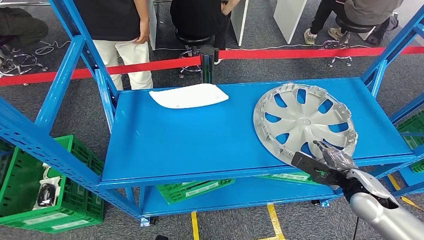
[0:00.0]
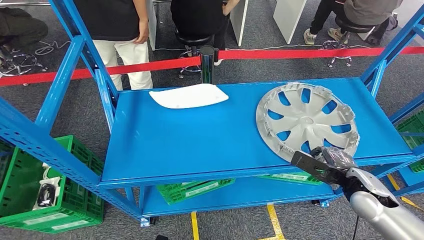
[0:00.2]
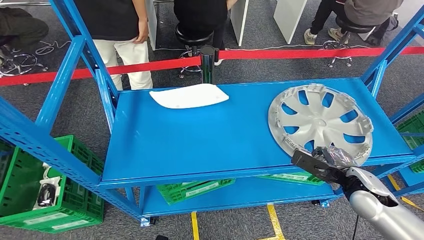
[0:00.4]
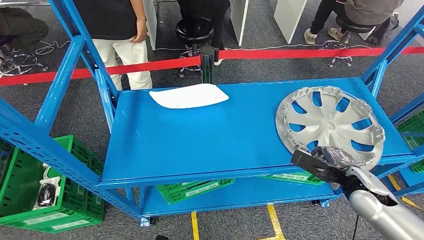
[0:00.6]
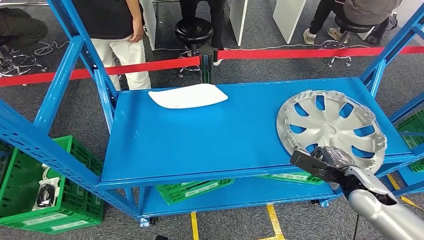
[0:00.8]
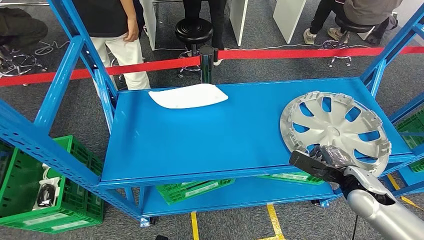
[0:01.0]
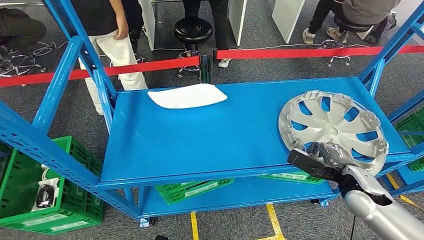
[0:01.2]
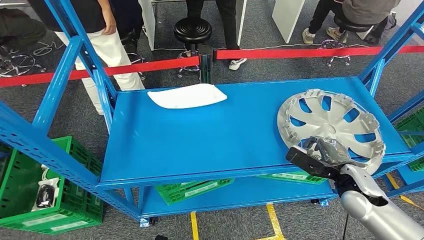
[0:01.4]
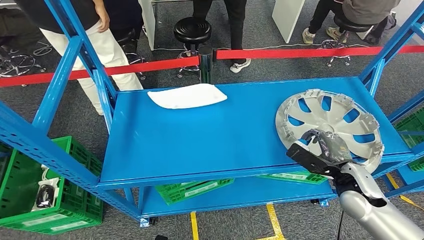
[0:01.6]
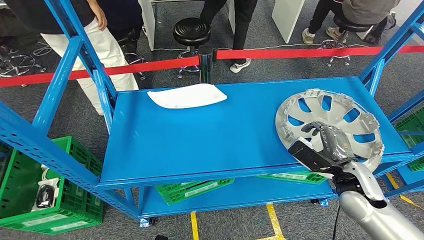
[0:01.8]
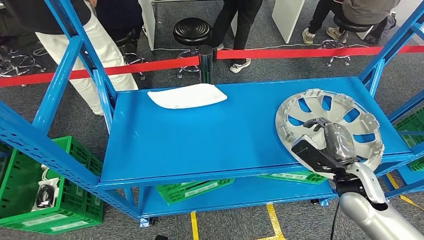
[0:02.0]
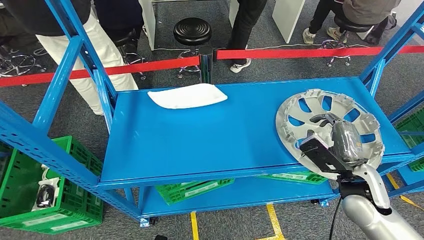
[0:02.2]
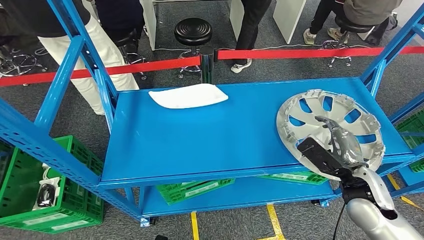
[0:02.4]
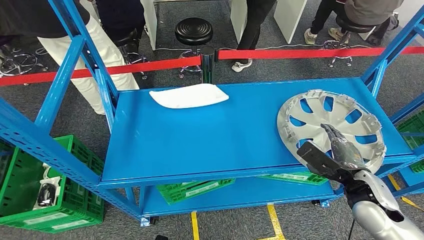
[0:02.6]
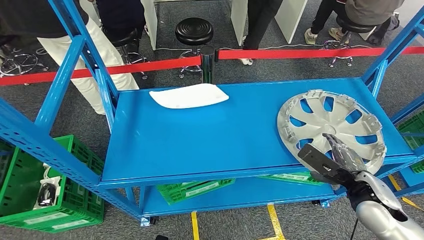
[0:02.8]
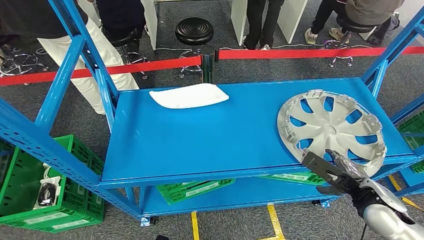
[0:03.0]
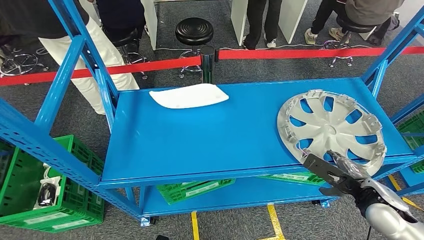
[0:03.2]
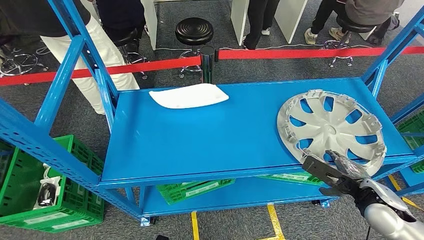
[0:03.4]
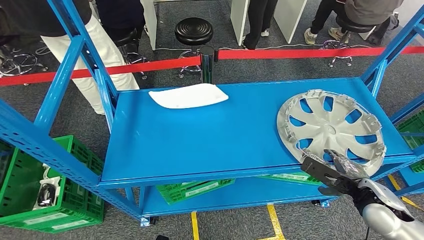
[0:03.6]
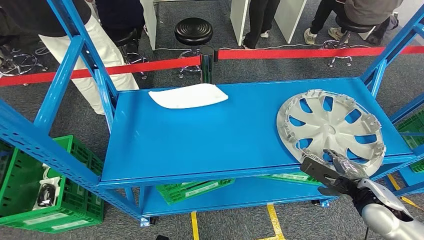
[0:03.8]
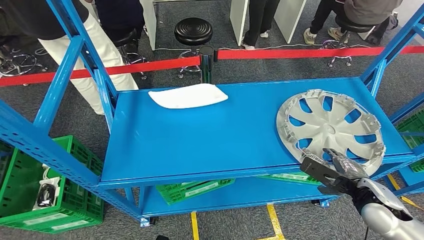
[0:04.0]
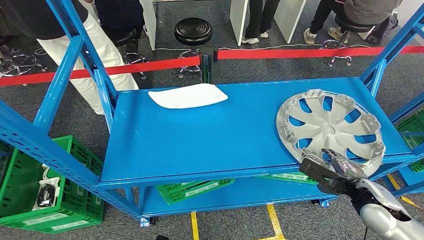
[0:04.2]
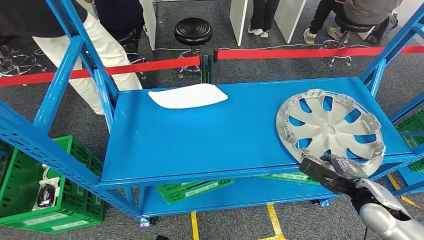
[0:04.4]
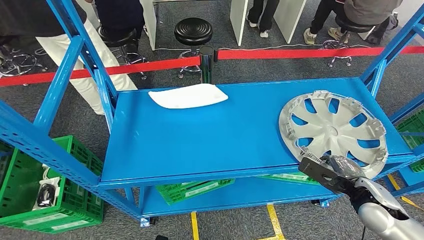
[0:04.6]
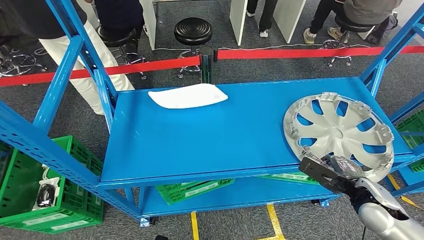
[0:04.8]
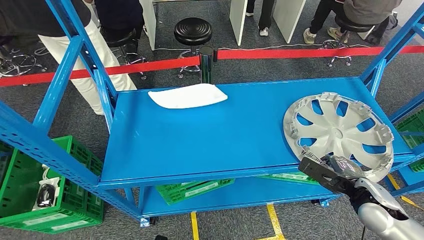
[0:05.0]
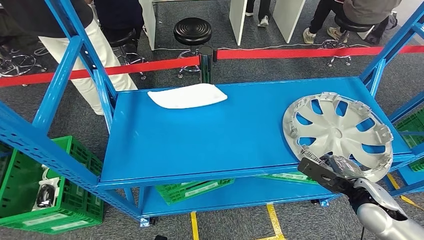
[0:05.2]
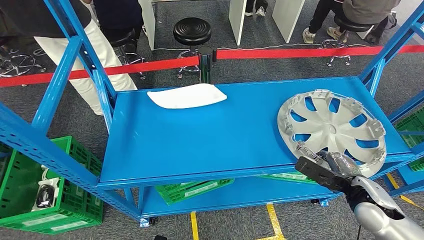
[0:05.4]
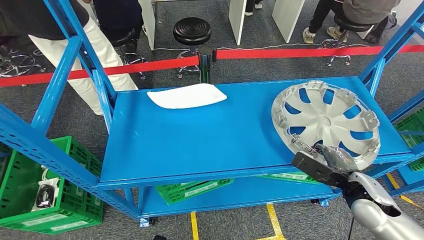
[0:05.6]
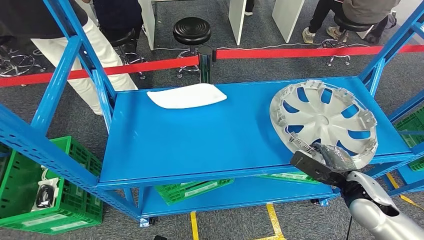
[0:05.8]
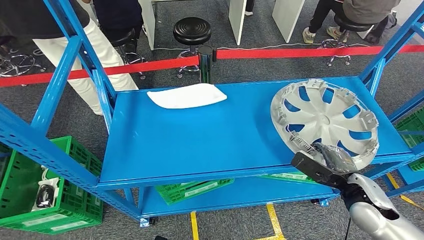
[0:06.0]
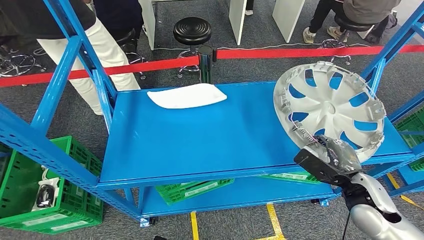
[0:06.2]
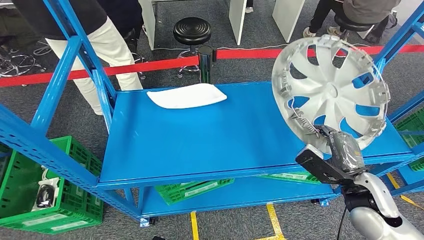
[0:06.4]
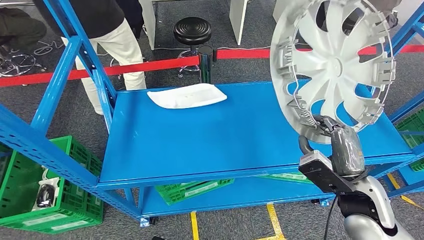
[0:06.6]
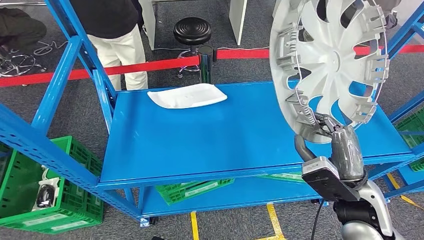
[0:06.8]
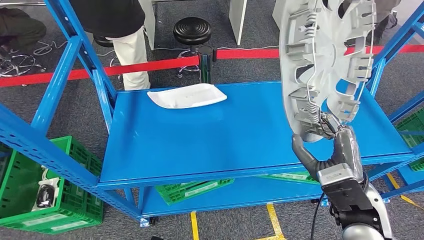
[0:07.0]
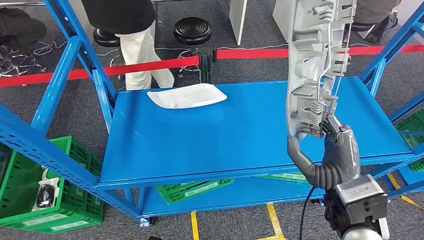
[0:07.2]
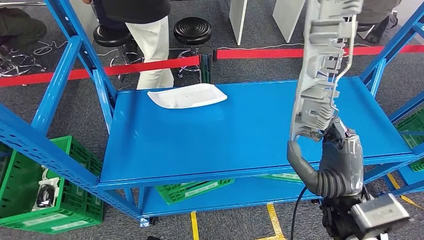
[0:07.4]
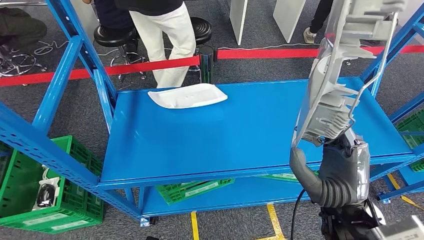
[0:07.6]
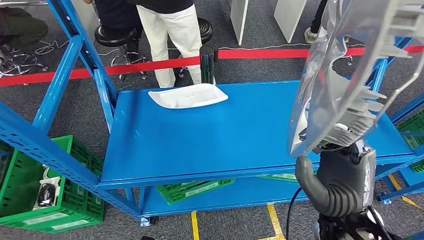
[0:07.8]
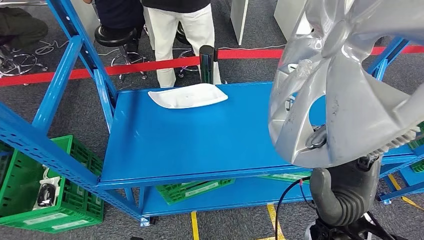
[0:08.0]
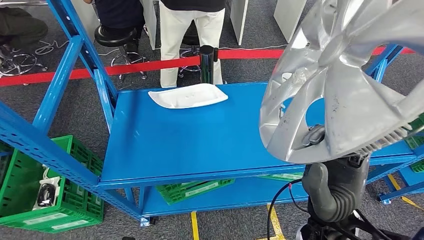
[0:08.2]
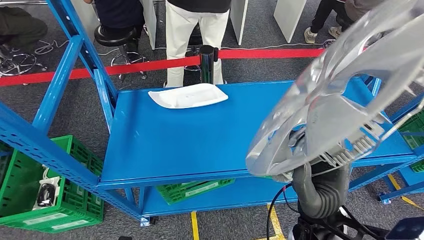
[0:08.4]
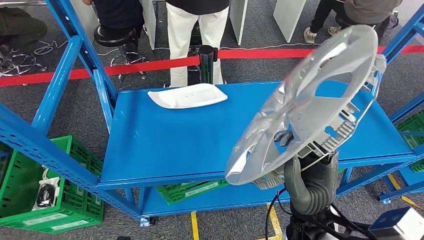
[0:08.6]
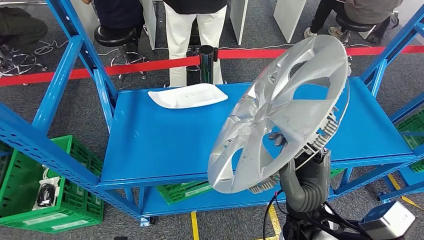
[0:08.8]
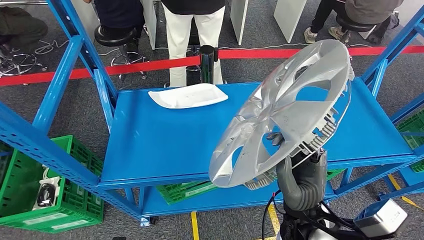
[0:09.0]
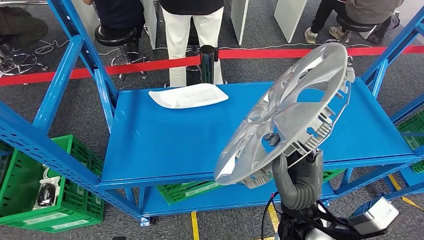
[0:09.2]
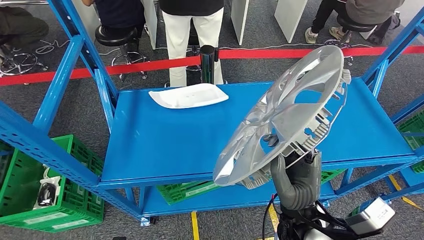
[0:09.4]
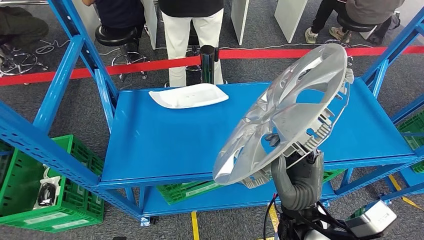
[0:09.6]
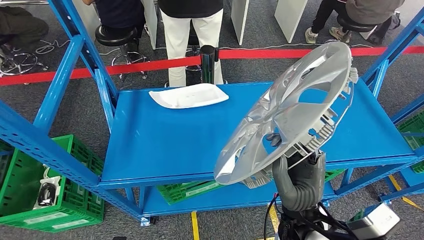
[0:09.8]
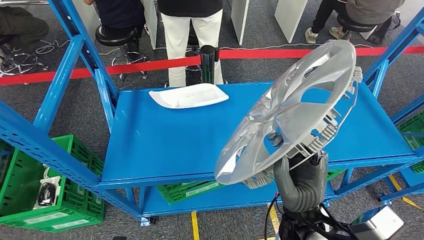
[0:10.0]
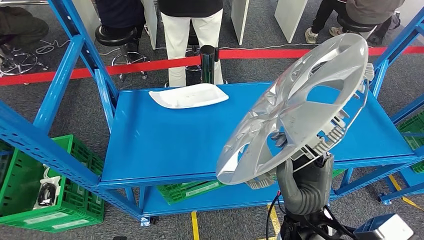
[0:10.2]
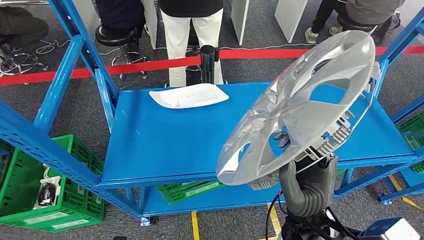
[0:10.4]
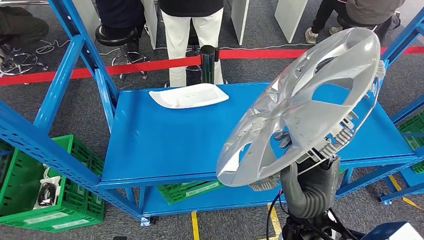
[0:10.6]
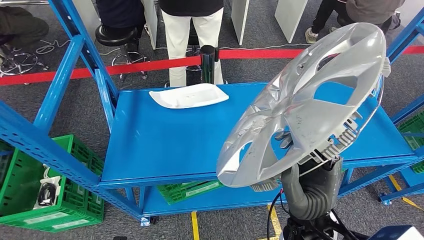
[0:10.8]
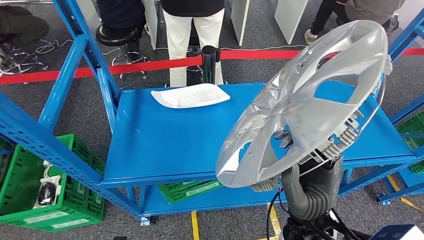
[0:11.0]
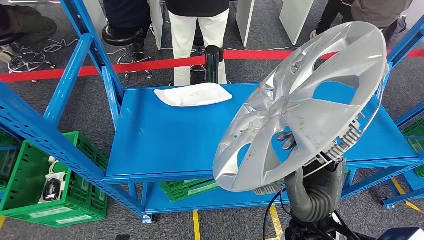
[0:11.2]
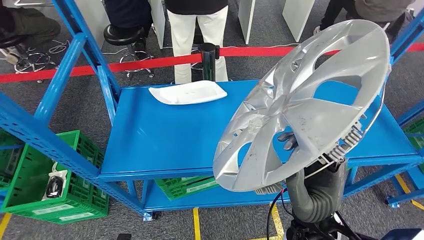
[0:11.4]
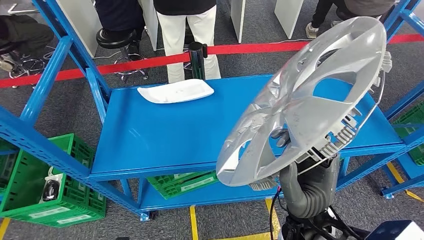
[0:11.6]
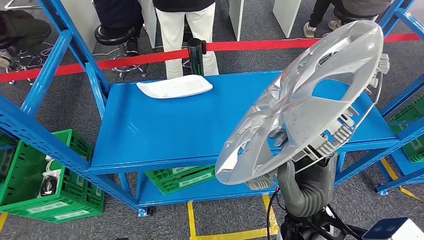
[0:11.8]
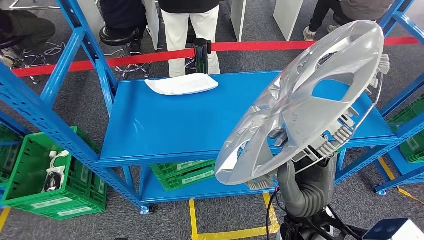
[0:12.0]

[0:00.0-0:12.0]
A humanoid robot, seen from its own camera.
Step, 0:00.0 to 0:07.0: Pick up the small parts from the shelf.
0:03.0 to 0:06.0: The hands stay close to where they were, moving slightly.
0:09.0 to 0:10.4: There are only small adjustments of the hands.

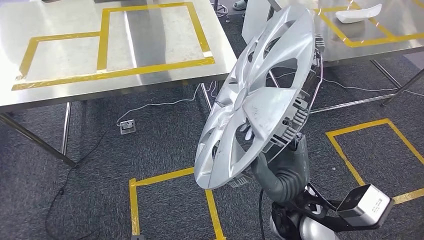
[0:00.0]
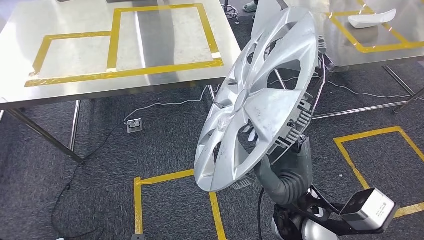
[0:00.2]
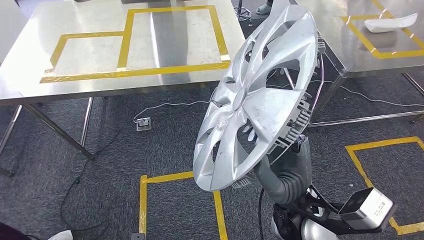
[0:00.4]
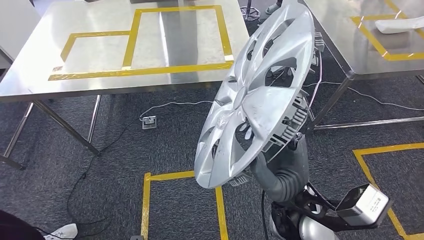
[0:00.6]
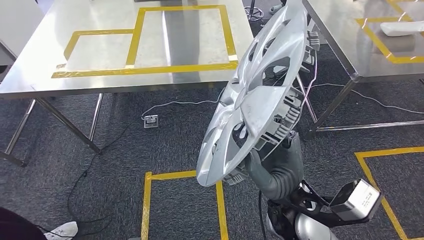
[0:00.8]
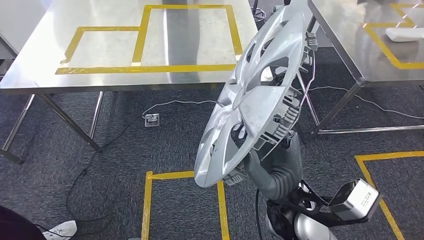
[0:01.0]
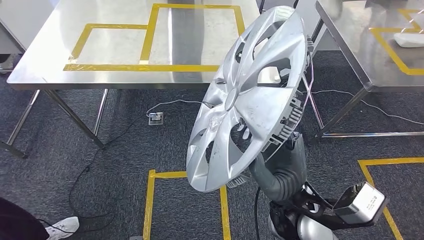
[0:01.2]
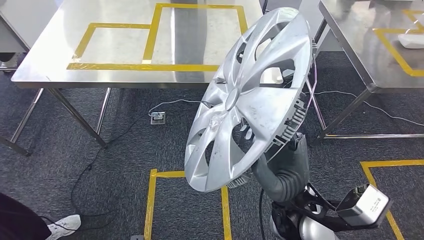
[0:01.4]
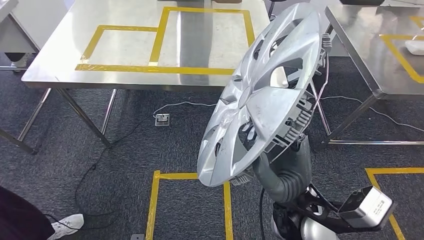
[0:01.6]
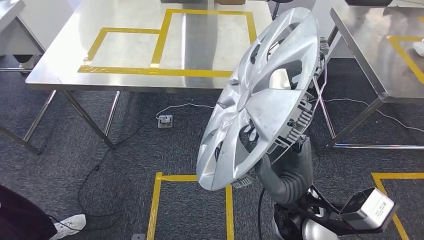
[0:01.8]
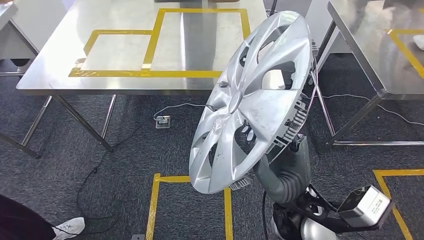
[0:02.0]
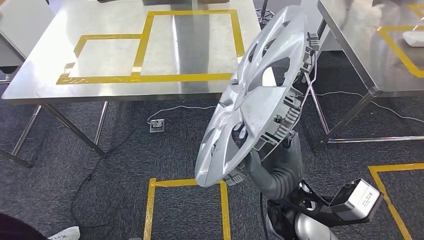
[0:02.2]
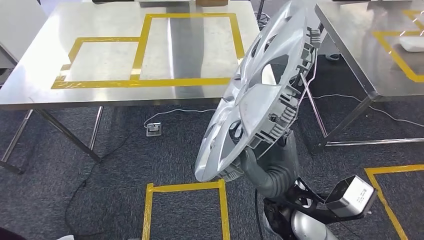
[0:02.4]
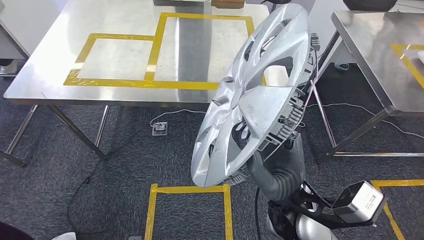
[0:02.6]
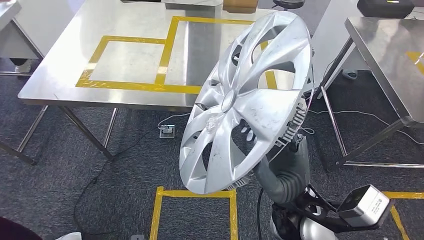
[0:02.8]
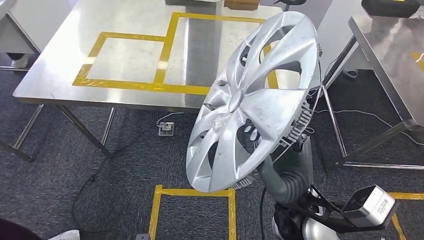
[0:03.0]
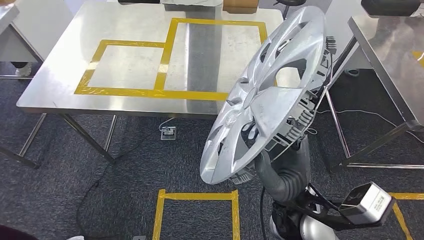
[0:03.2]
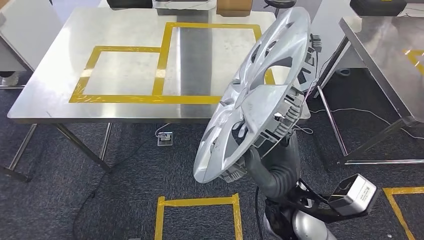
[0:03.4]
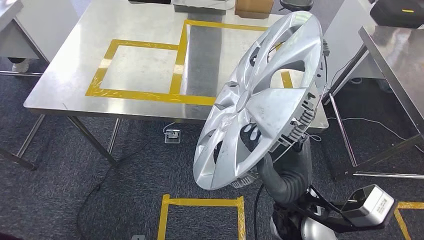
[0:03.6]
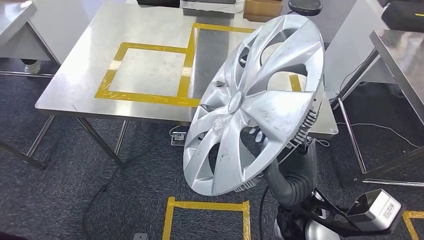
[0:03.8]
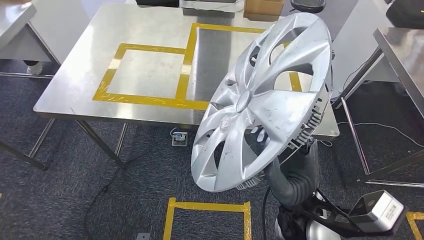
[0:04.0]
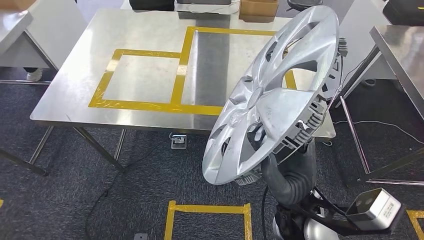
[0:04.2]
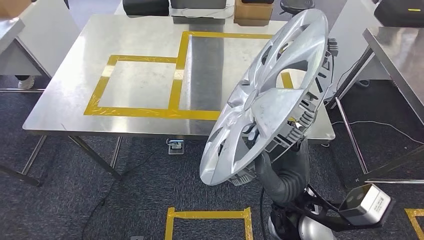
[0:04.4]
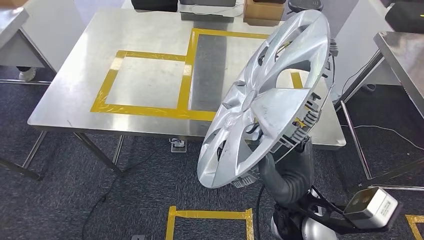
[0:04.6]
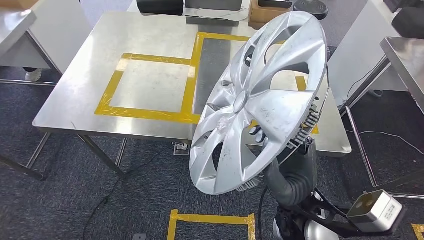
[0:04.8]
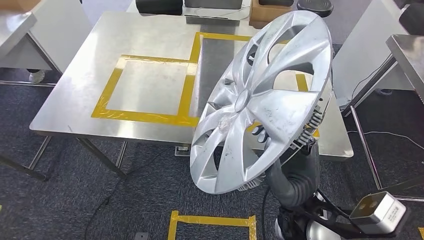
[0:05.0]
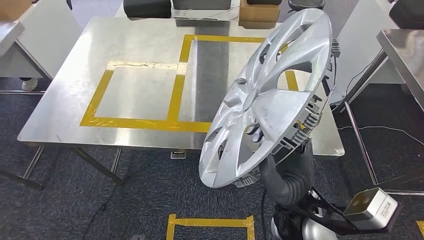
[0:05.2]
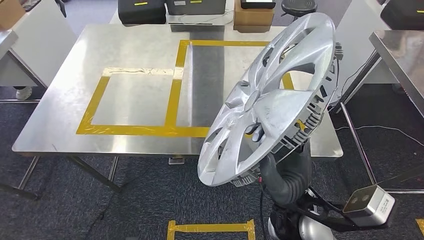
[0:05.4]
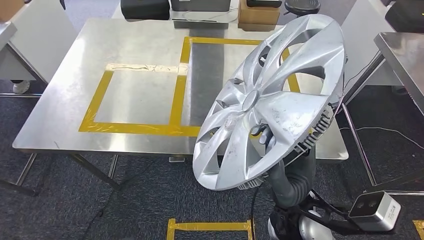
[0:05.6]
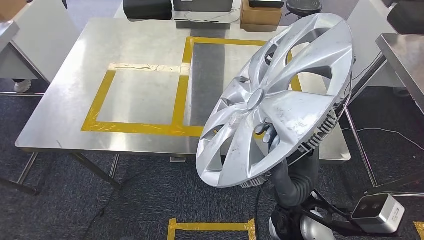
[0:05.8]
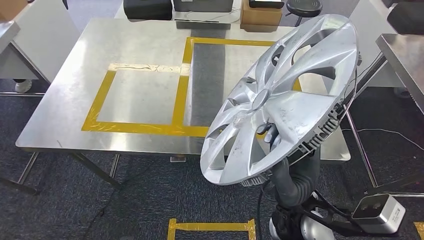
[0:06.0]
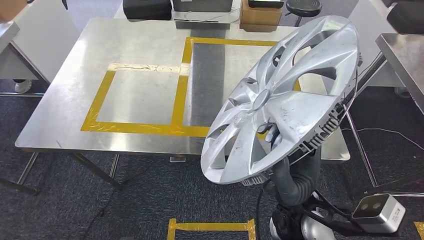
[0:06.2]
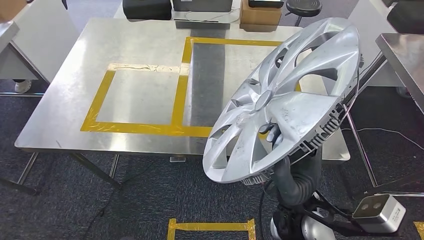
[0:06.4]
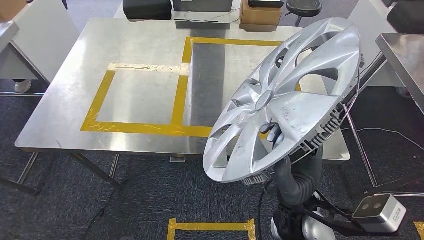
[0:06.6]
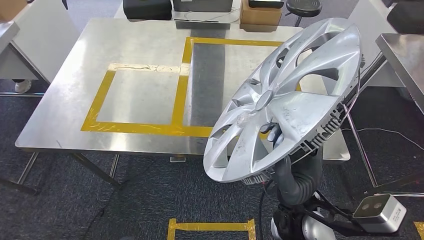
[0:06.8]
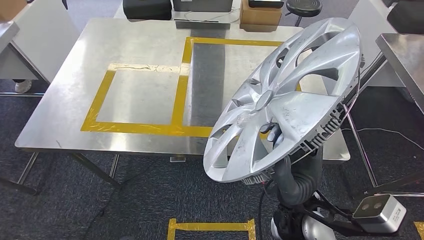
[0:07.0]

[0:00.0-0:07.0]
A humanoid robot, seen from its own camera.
Step, 0:00.0 to 0:06.0: Move the small parts to the workbench.
0:05.6 to 0:07.0: Neither hand changes place.
